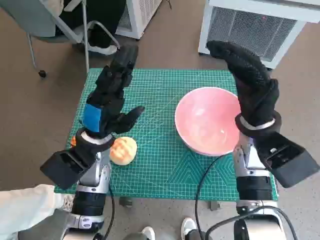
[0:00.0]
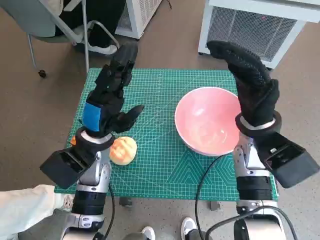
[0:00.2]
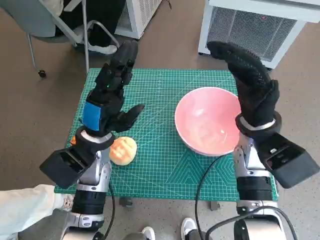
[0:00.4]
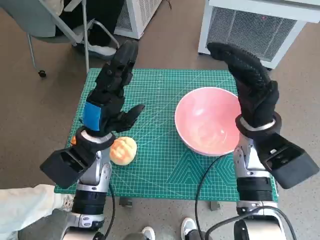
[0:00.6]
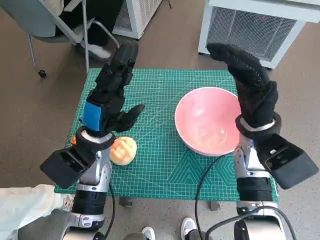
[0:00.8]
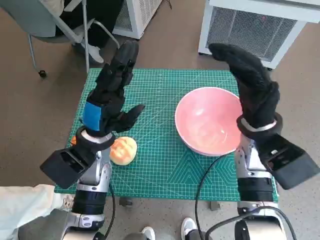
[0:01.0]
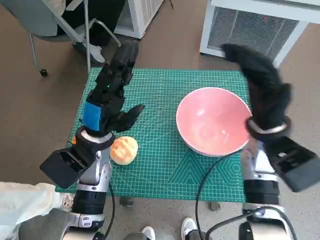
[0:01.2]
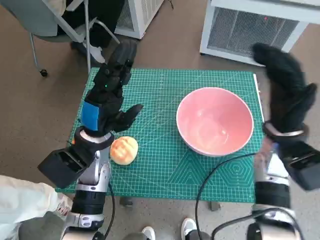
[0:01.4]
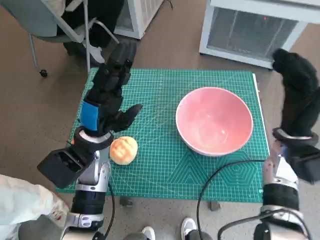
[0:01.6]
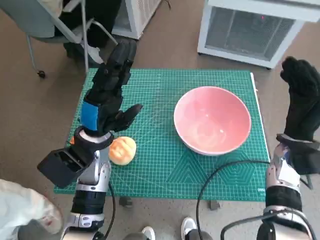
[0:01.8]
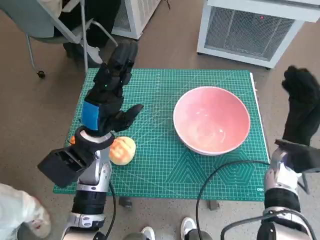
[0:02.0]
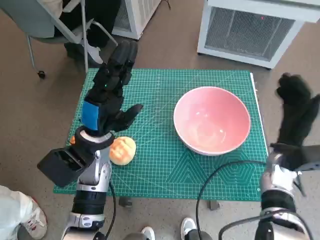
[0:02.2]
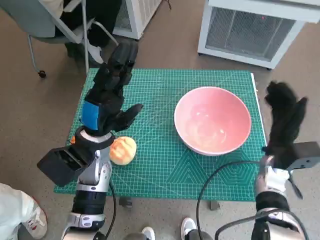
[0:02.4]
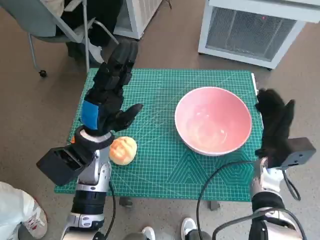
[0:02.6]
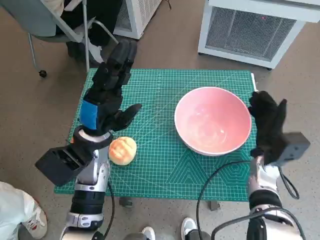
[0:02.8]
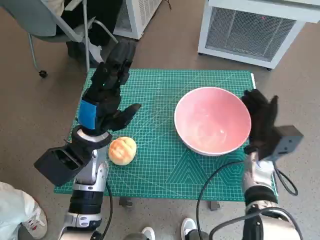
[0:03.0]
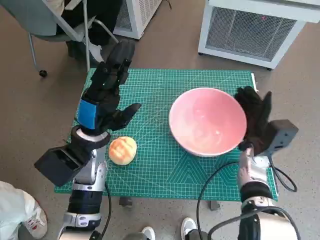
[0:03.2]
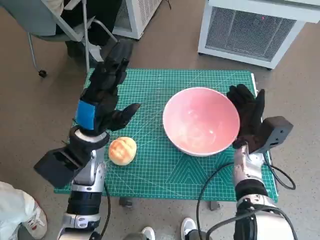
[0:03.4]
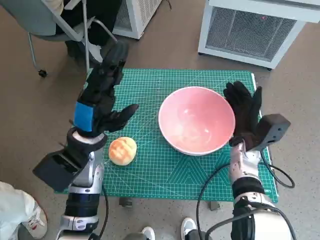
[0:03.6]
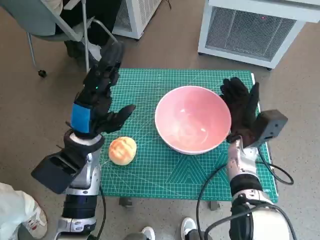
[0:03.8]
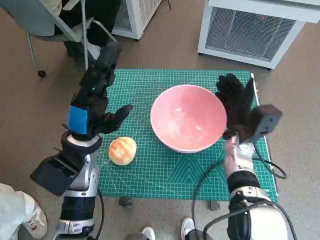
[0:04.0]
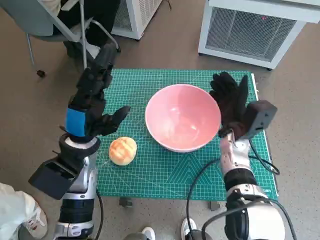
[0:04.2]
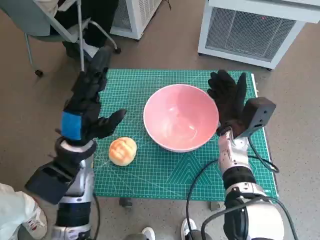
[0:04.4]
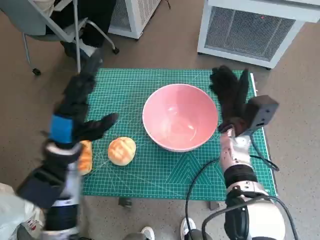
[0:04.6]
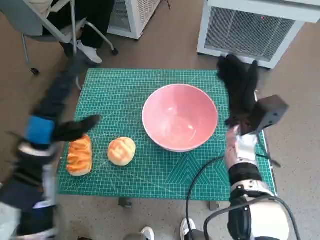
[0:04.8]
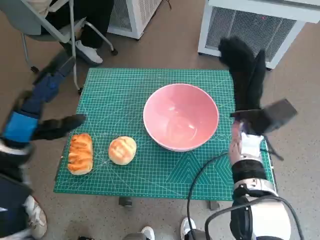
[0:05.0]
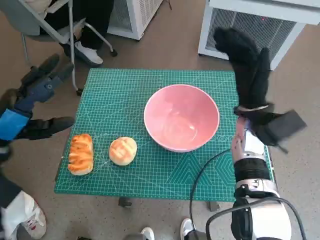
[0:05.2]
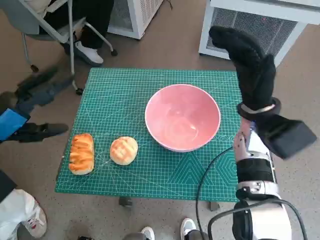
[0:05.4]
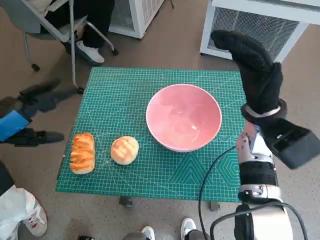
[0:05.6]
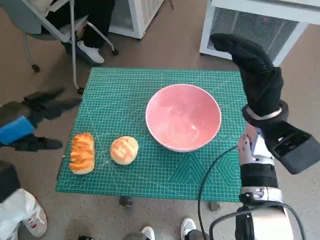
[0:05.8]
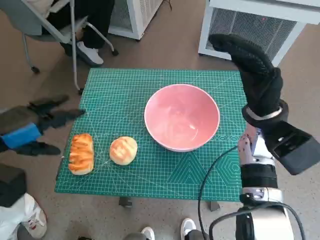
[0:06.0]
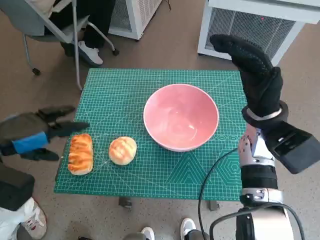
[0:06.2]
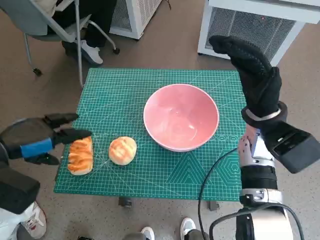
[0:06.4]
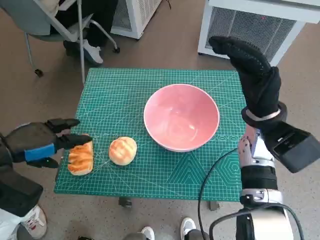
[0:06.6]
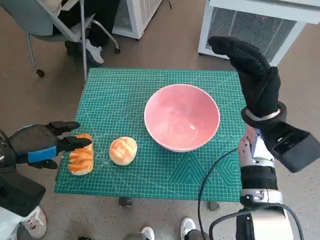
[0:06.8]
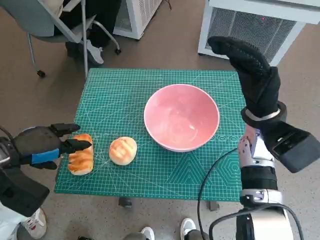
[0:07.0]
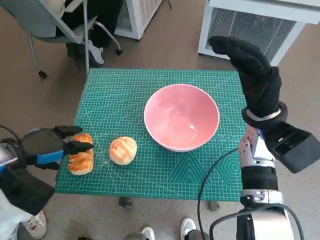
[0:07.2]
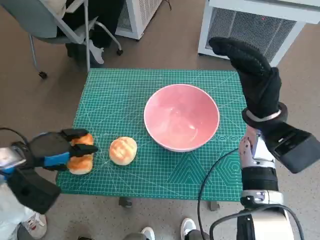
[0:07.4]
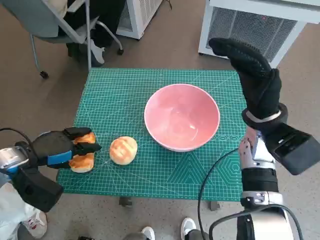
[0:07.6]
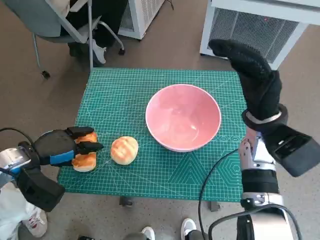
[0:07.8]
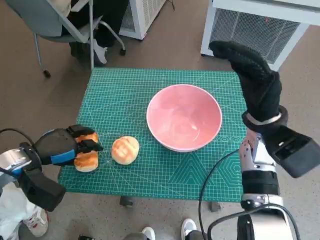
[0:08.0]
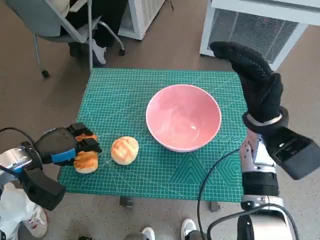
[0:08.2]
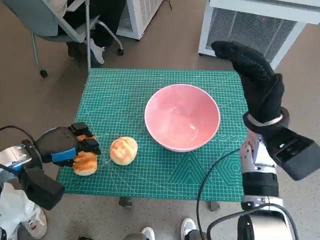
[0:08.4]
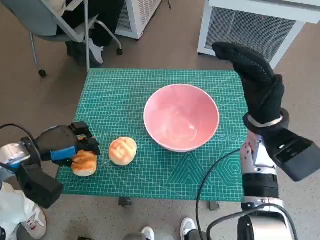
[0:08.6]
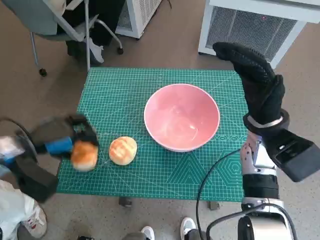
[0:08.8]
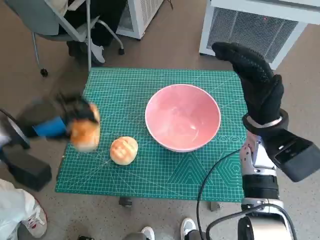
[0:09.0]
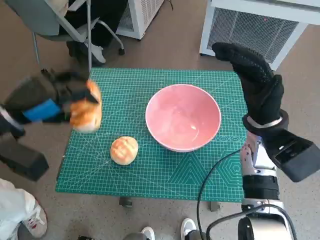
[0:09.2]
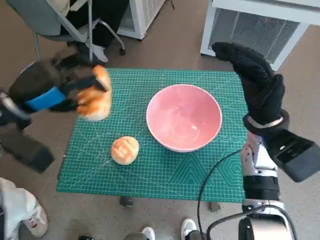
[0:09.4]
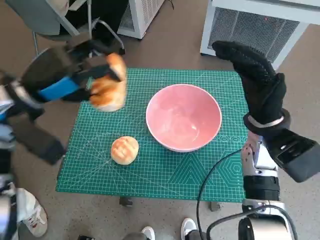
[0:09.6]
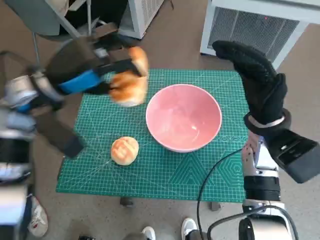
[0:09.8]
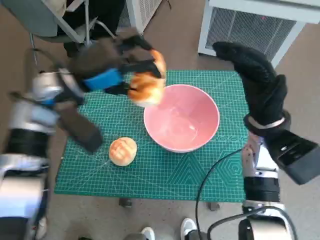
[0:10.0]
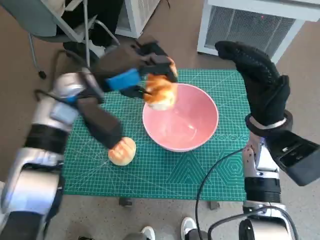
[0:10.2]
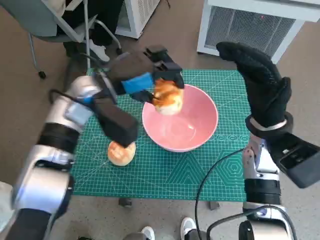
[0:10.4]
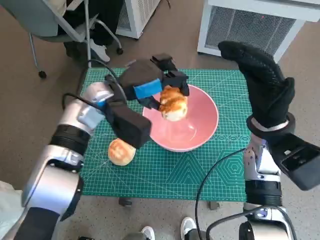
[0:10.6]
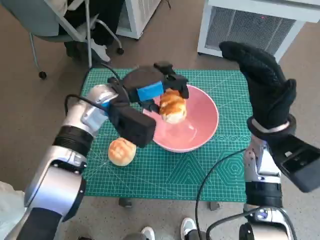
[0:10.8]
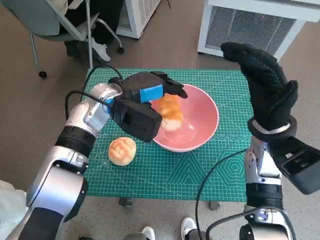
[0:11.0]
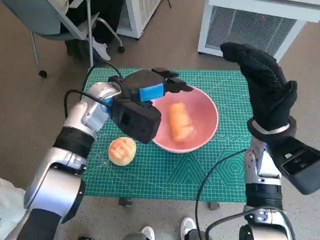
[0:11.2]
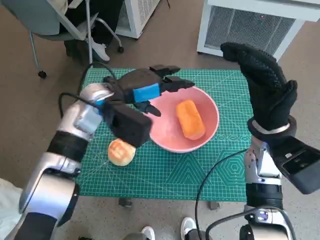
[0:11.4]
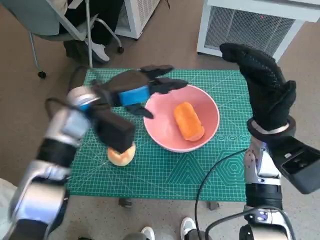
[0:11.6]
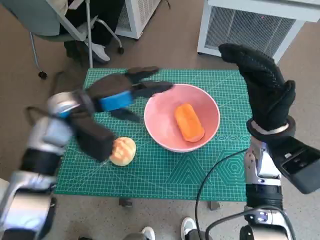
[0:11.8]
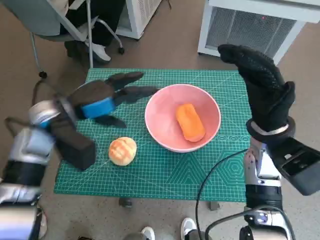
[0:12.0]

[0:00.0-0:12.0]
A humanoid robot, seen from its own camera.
Task of the whole recording: Push the bowl to the center of the table and put the bread into the bowl.
Step, 0:00.0 to 0:04.6: Move the pink bowl to the center of table with right hand.
Step, 0:04.8 to 0:08.4: Grasp the long bread with left hand.
Step, 0:08.6 to 0:11.2: Place the long bread in pink bowl with left hand.
0:01.6 to 0:03.0: The right hand moves downward, some 10 cm.
0:03.0 to 0:04.4: The right hand moves to the left, approximately 5 cm.
0:04.4 to 0:06.0: The right hand shifts about 10 cm upward, while the left hand shifts some 15 cm to the left and upward.
0:06.0 to 0:07.6: The left hand goes approximately 10 cm downward.
0:07.6 to 0:09.0: The left hand ends up about 5 cm from where it was.
0:09.0 to 0:10.4: The left hand travels to the right and forward by about 20 cm.
0:10.4 to 0:12.0: The left hand heads to the left, covering approximately 5 cm.

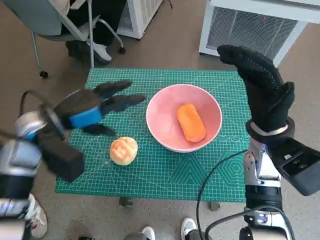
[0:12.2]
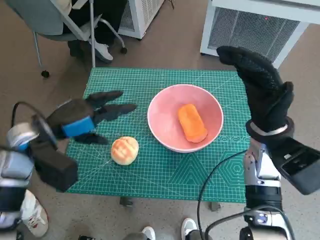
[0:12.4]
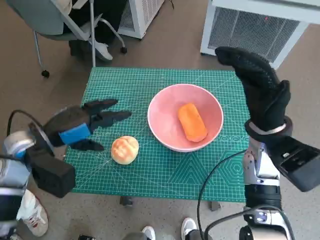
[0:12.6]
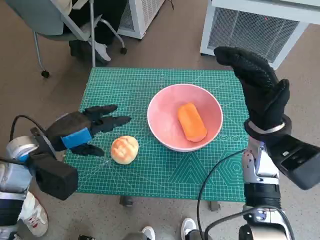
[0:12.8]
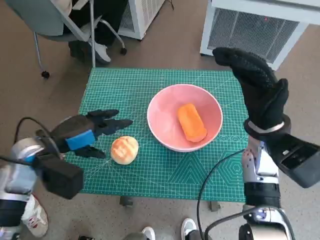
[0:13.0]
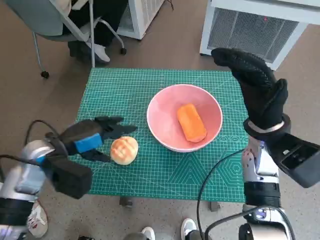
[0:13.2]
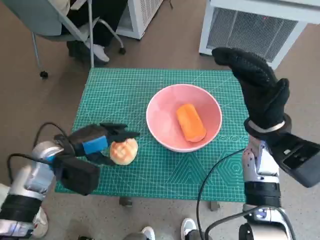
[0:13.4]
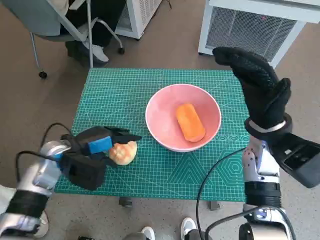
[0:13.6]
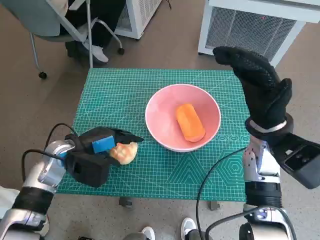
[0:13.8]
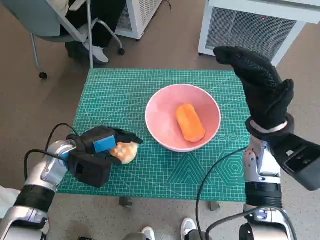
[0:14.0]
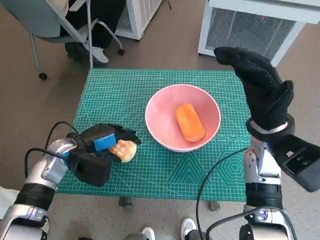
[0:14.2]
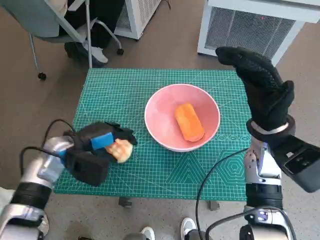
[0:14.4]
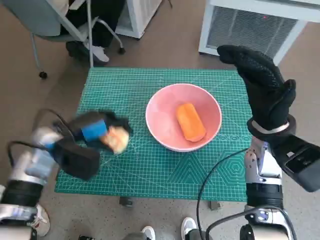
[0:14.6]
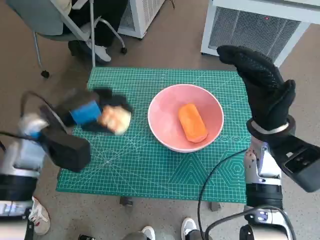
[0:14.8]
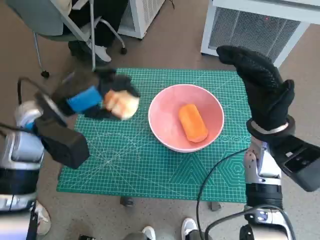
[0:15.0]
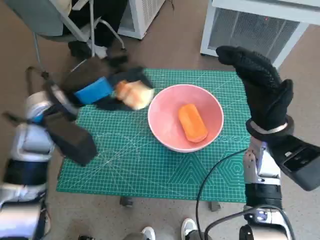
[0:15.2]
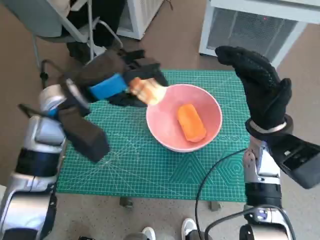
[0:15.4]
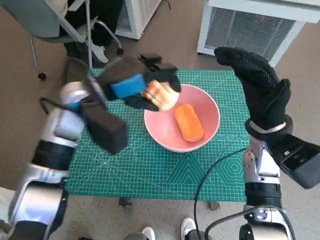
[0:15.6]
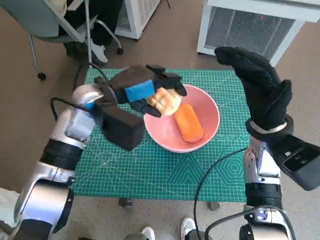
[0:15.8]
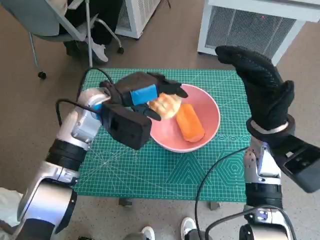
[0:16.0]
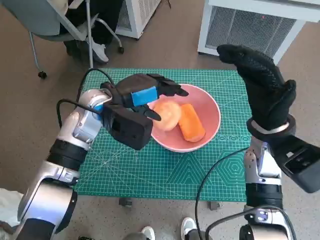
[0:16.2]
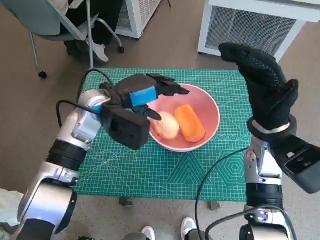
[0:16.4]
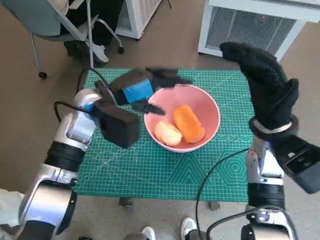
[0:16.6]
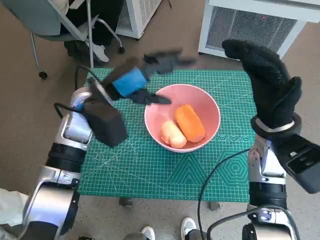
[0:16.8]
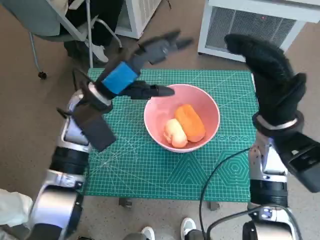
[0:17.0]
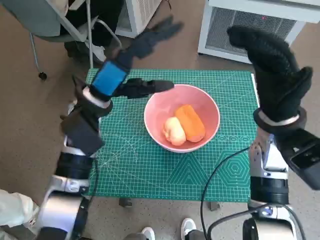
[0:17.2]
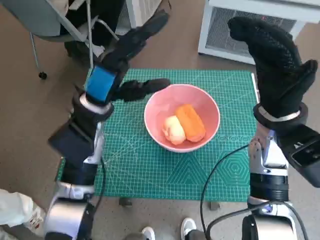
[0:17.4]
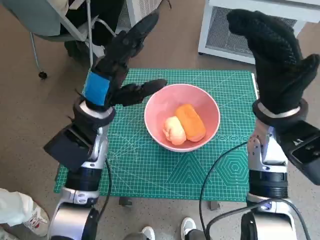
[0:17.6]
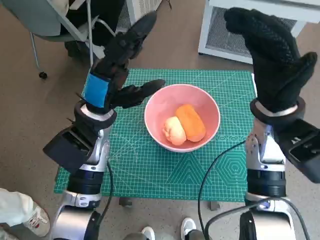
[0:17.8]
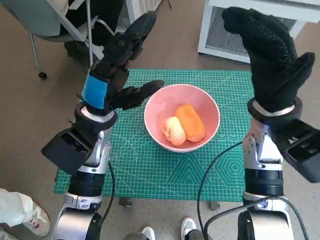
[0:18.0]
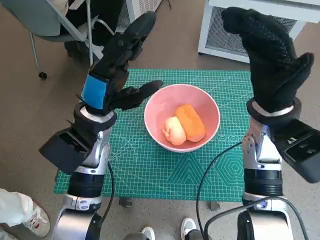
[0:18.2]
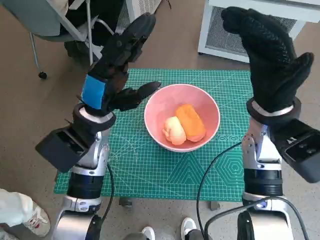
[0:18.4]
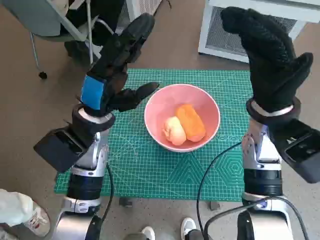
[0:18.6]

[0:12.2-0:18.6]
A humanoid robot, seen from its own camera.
Task of the whole recording: Push the bowl to the center of the table and put the bread into the bowl.
Step, 0:12.2 to 0:14.2: Grasp the round bread with left hand.
Step, 0:14.4 to 0:16.4: Place the round bread in pink bowl with left hand.
0:12.2 to 0:13.8: The left hand shifts about 10 cm downward.
0:13.8 to 0:15.4: The left hand heads upward, covering some 15 cm.

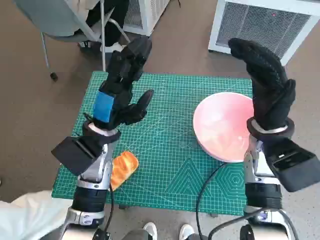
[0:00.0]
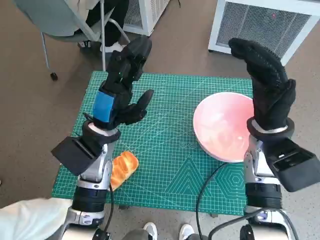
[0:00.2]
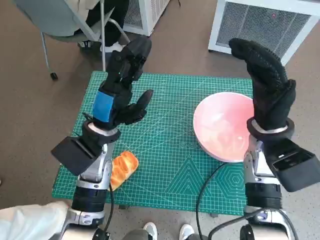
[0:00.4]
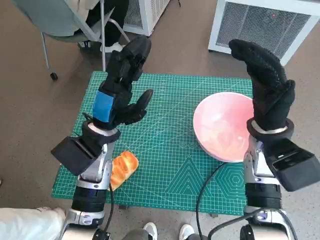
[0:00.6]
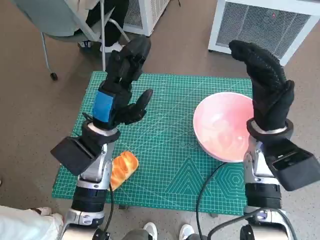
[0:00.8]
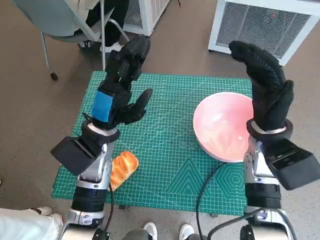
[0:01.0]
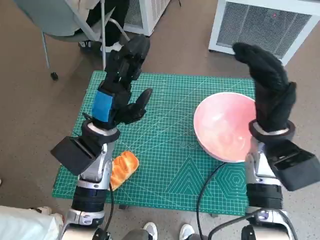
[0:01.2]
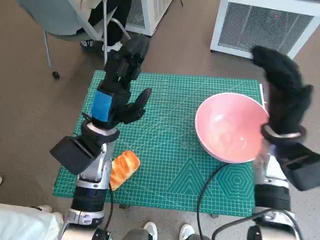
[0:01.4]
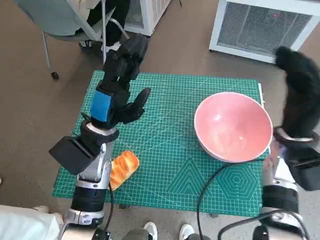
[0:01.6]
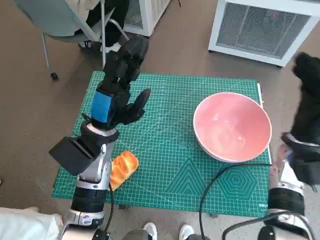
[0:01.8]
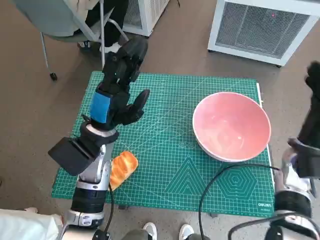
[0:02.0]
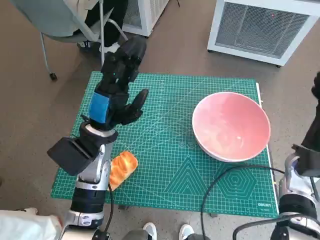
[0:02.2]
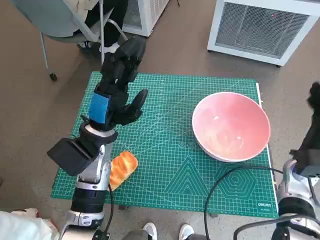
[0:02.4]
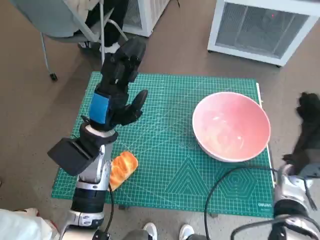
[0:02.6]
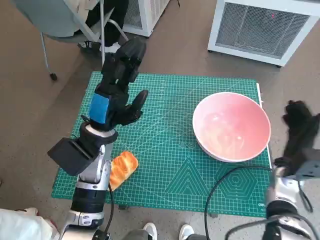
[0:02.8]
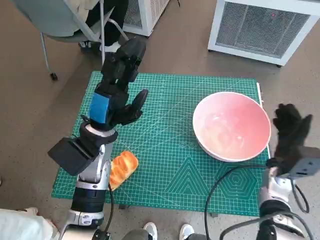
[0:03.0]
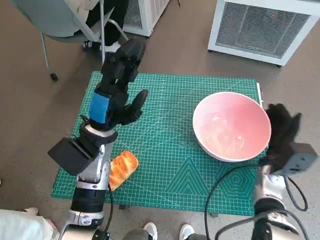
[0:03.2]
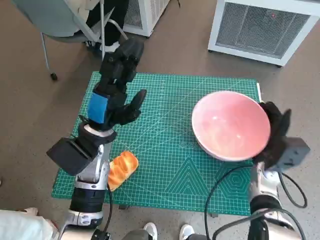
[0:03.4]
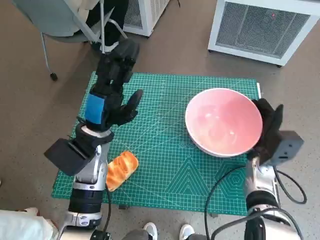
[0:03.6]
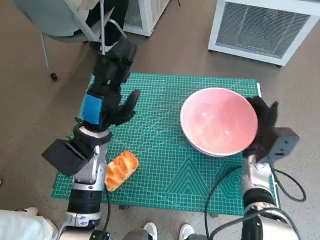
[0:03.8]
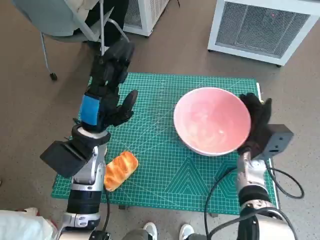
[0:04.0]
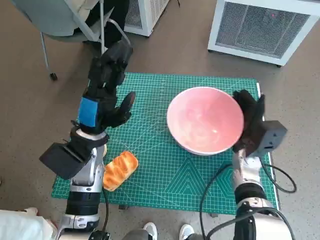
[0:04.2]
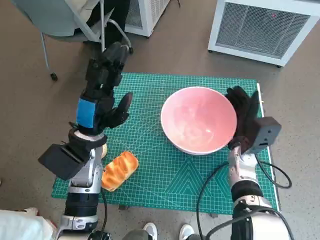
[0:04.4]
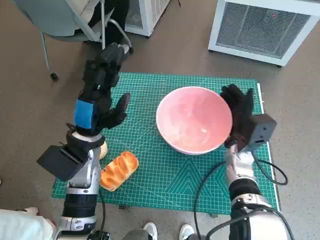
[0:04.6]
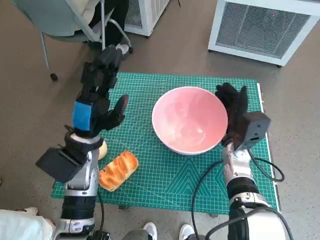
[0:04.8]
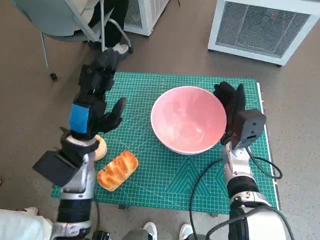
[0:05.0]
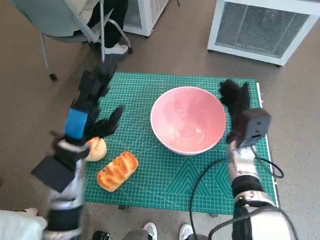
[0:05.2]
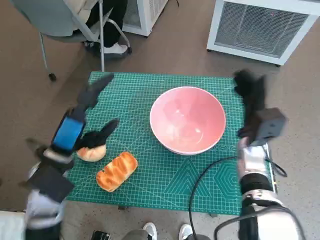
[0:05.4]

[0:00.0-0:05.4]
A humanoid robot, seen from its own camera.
Task of the whole recording: Push the bowl to the center of the table and put the bread into the bowl.
0:01.4 to 0:02.8: The right hand heads downward and to the right, covering approximately 15 cm.
0:02.8 to 0:04.0: The right hand goes about 5 cm to the left.
0:04.0 to 0:05.4: The left hand ends up roughly 5 cm from where it was.
